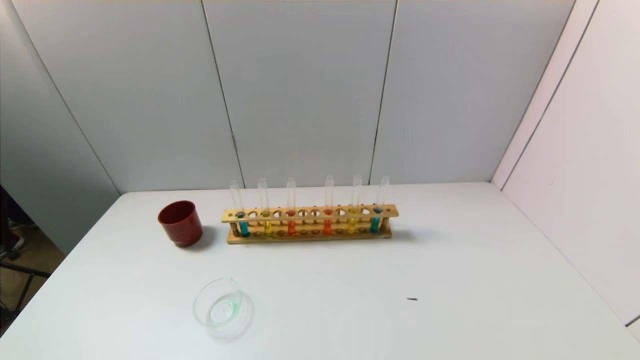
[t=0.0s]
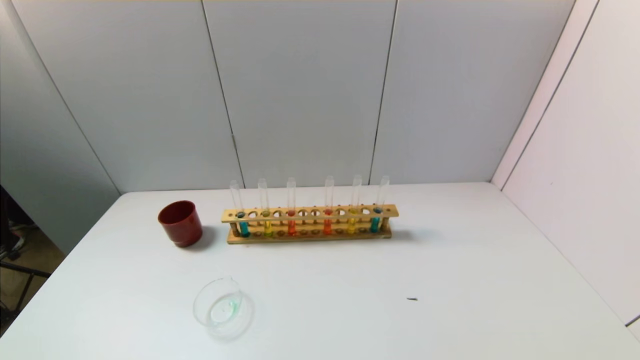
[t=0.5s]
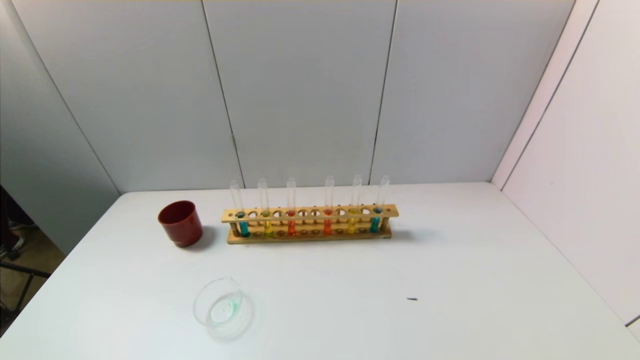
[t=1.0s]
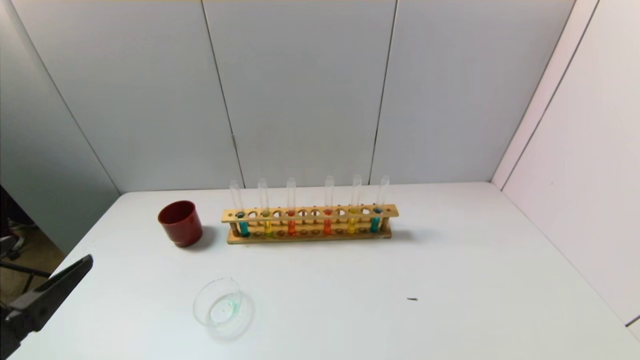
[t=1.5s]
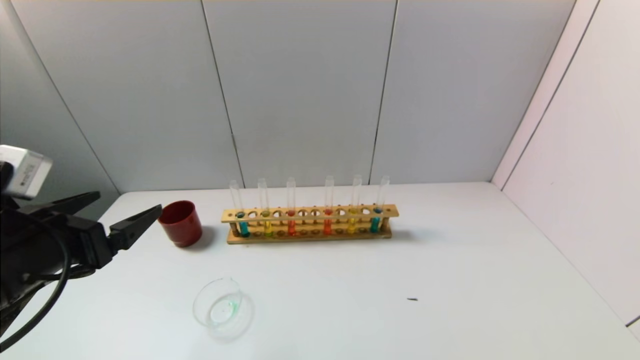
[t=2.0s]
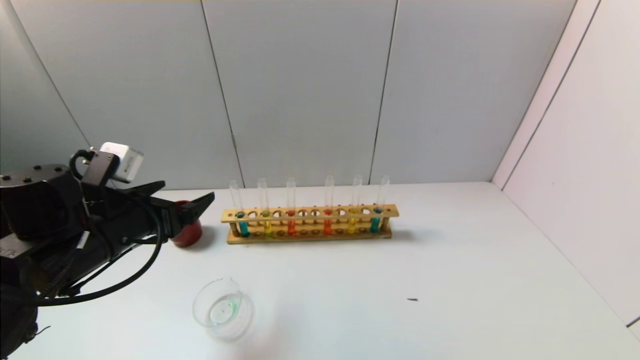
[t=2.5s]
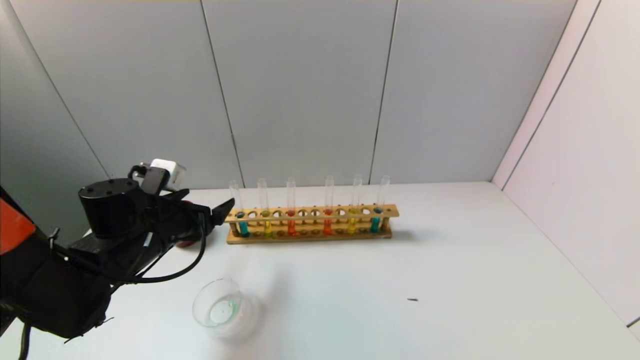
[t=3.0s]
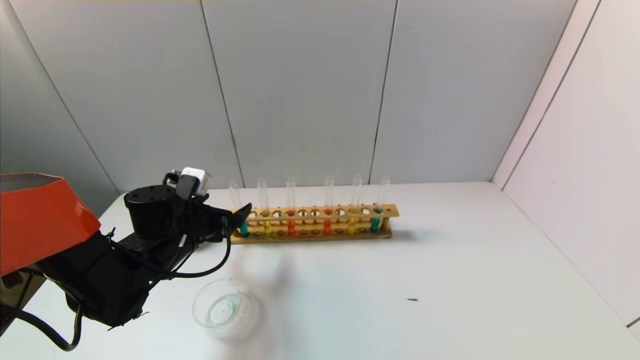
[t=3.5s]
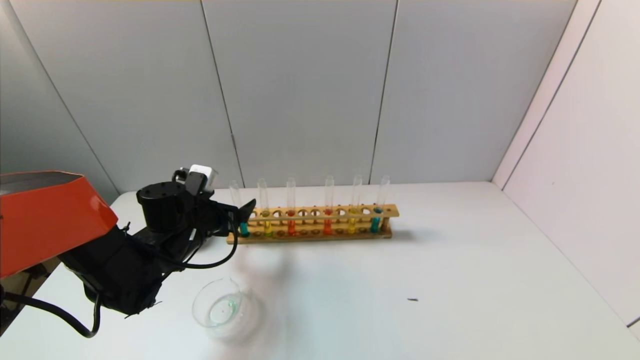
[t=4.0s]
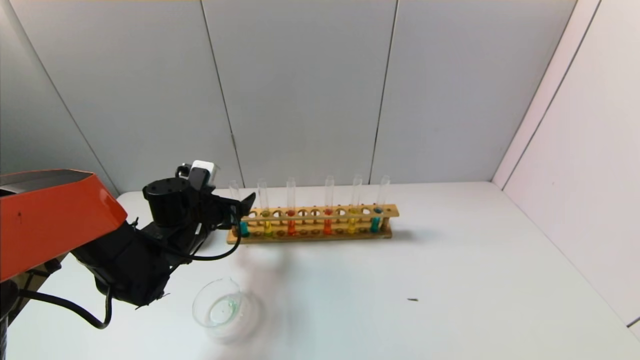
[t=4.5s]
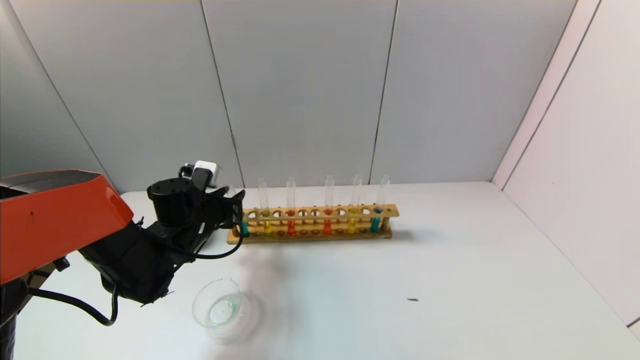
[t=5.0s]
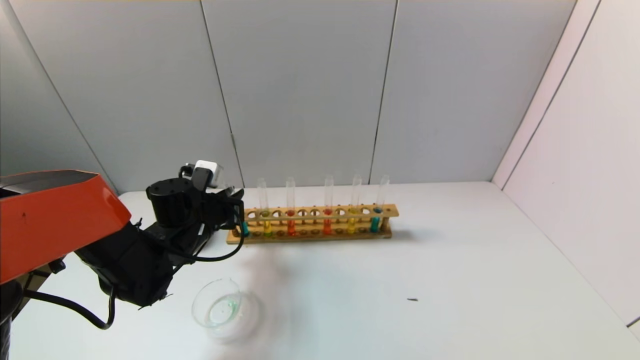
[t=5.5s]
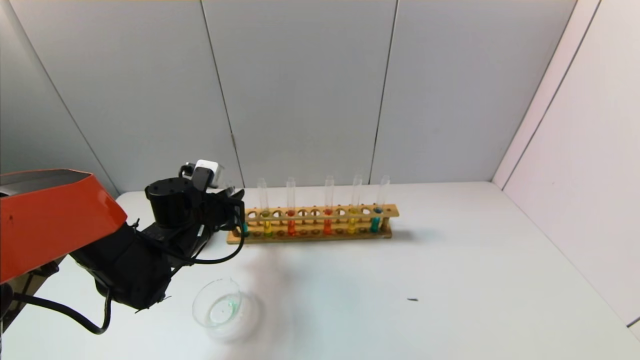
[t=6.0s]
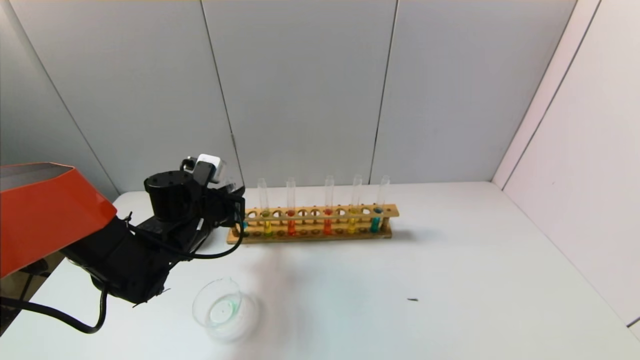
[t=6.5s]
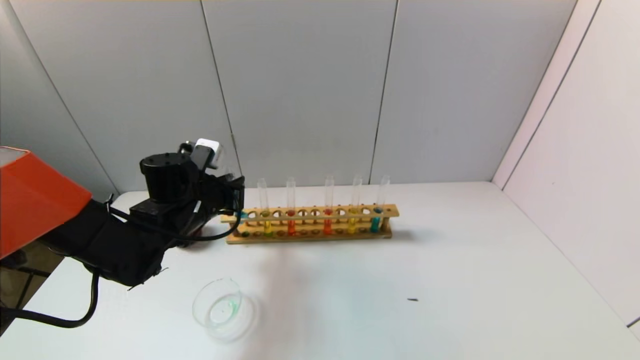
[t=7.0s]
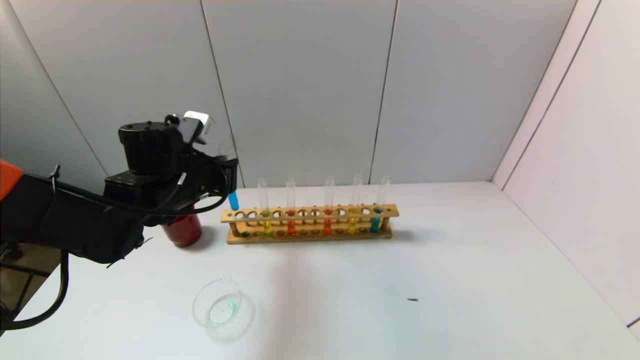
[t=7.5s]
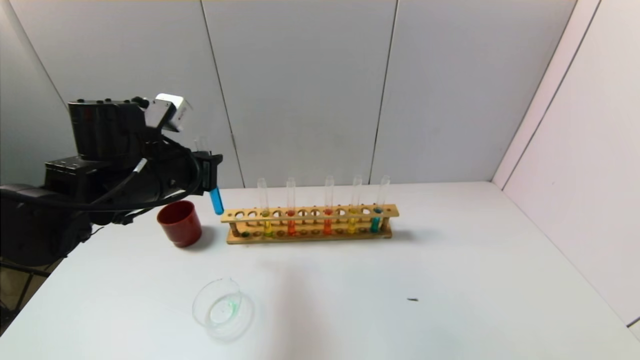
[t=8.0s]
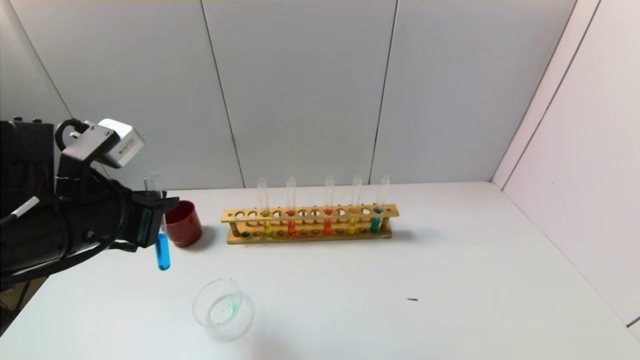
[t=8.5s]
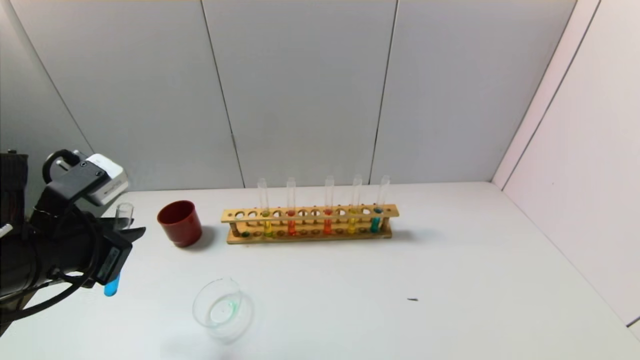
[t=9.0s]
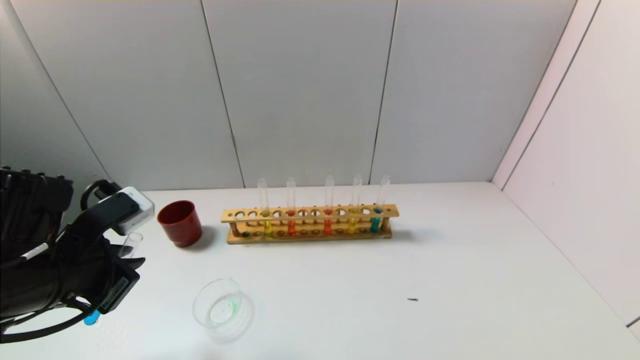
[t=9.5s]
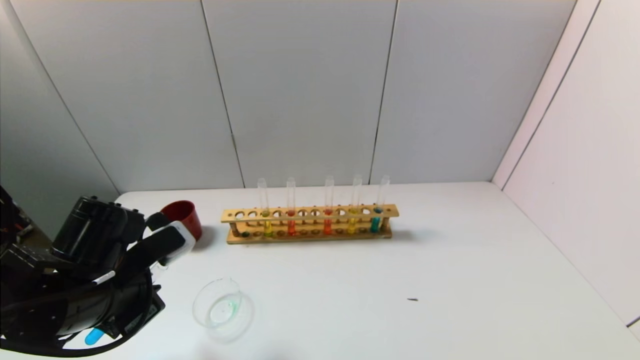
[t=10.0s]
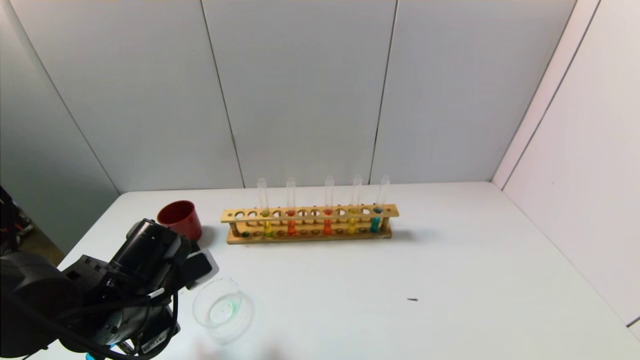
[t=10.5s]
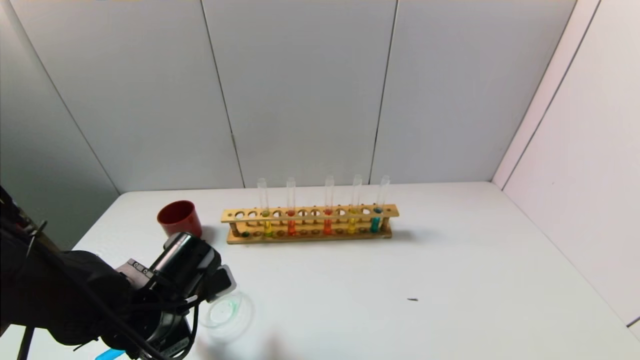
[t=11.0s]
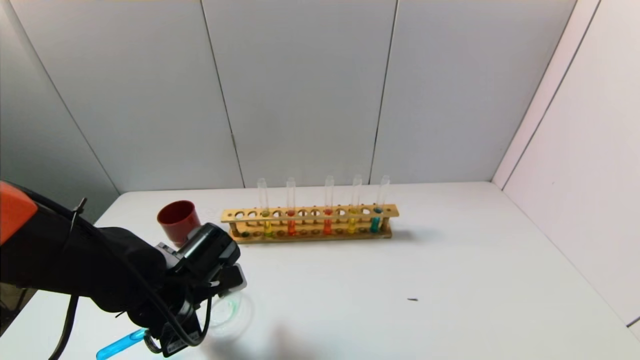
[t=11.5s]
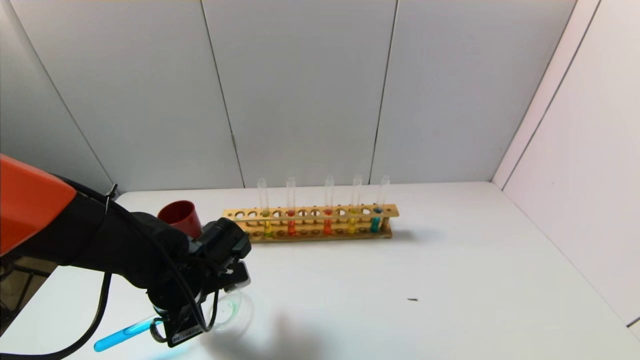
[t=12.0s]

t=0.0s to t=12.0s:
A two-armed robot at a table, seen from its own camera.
Task of the whole recording: pick up the test tube with yellow pigment and the test tube with blue pigment by grippers and pour them into the beaker.
Step, t=0.0s to t=5.0s: Grasp the blue reagent with the left gripper.
t=0.0s to t=2.0s: The left gripper shifts some 25 cm forward and upward.
t=2.0s to t=4.0s: The left gripper heads forward, downward and to the right, covering about 20 cm.
t=4.0s to t=6.0s: The left gripper closes.
t=6.0s to t=8.0s: The left gripper heads upward and backward, covering about 15 cm.
t=8.0s to t=10.0s: The left gripper goes about 10 cm backward and downward.
t=10.0s to t=12.0s: The left gripper heads downward, to the right and forward, covering roughly 10 cm.

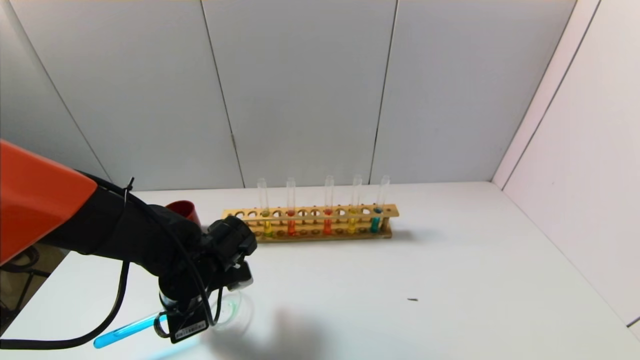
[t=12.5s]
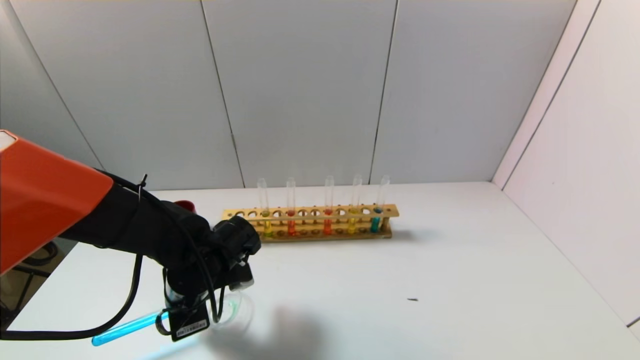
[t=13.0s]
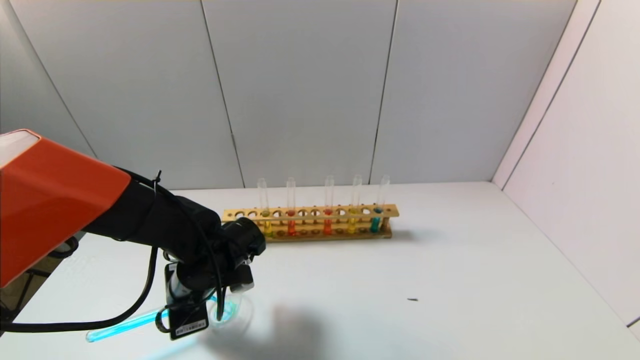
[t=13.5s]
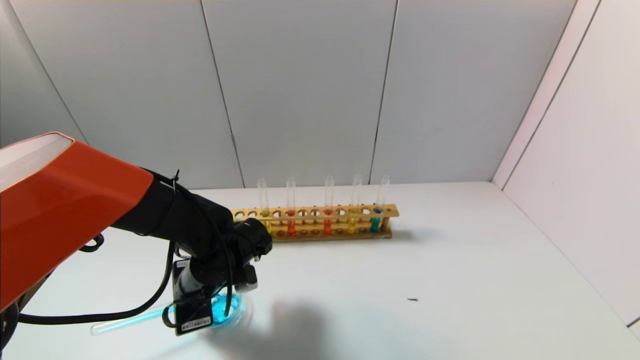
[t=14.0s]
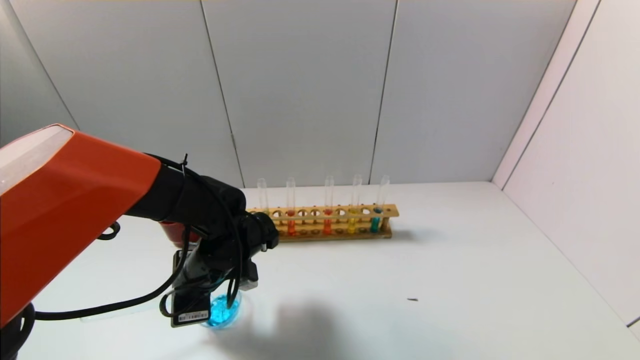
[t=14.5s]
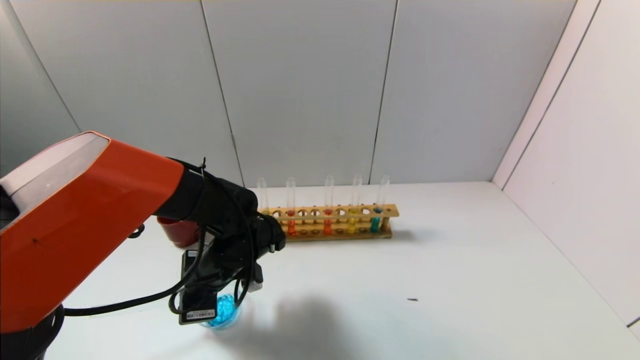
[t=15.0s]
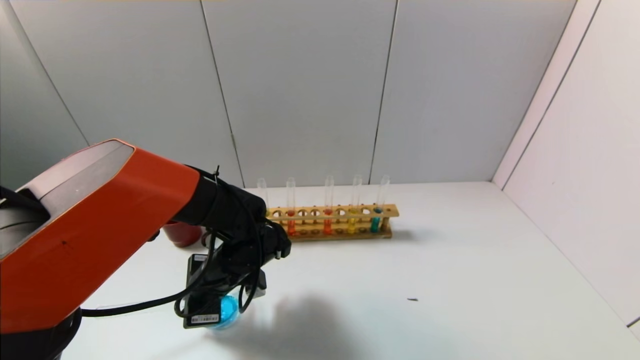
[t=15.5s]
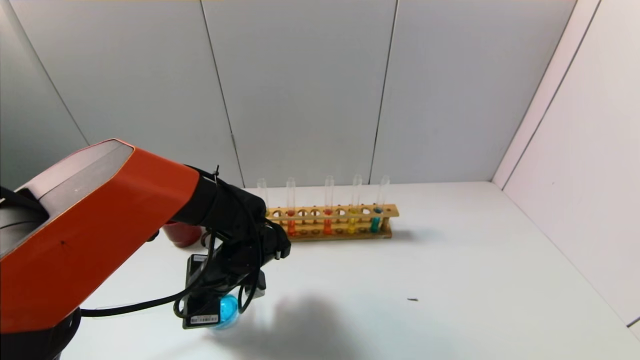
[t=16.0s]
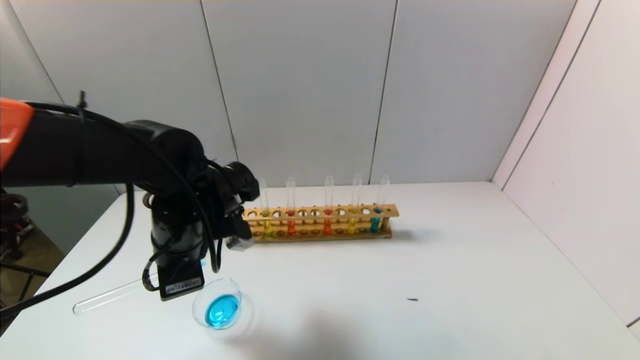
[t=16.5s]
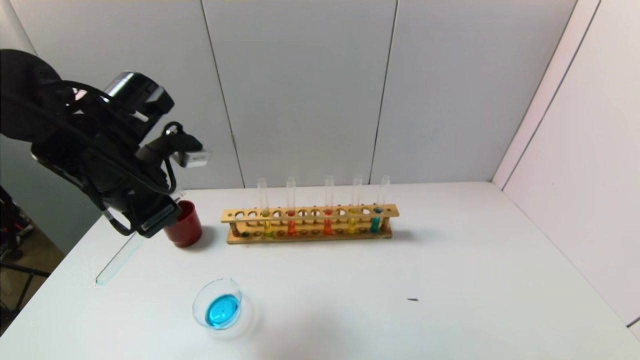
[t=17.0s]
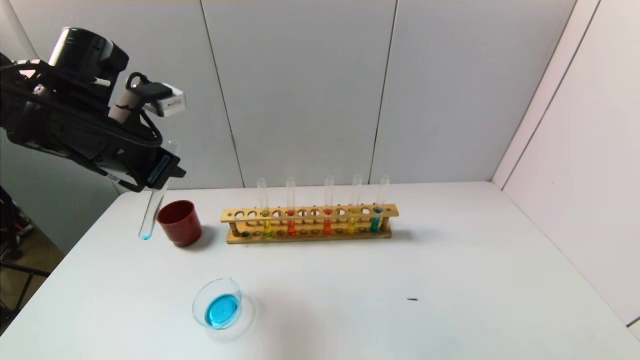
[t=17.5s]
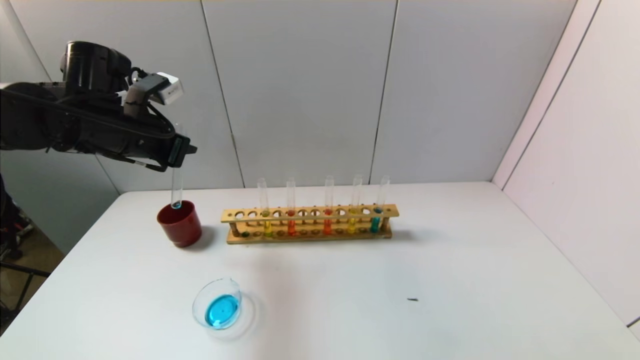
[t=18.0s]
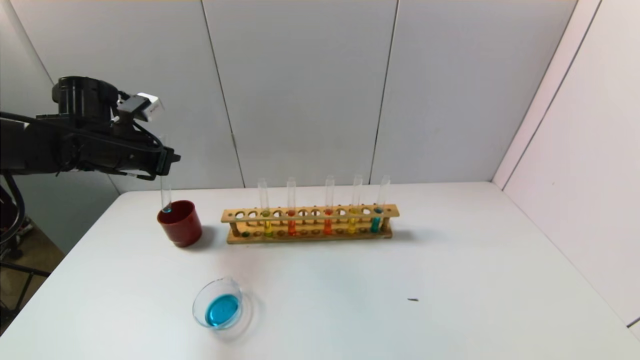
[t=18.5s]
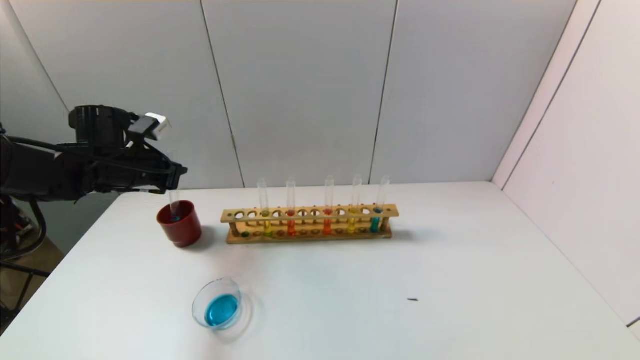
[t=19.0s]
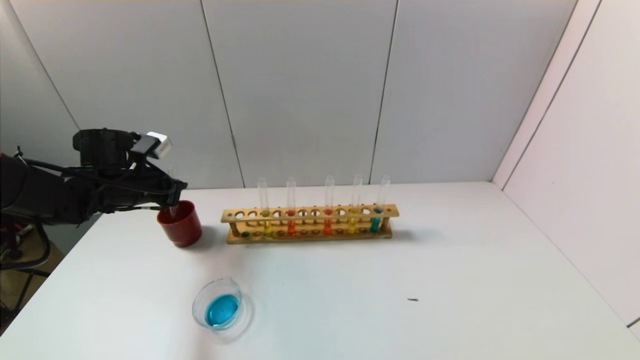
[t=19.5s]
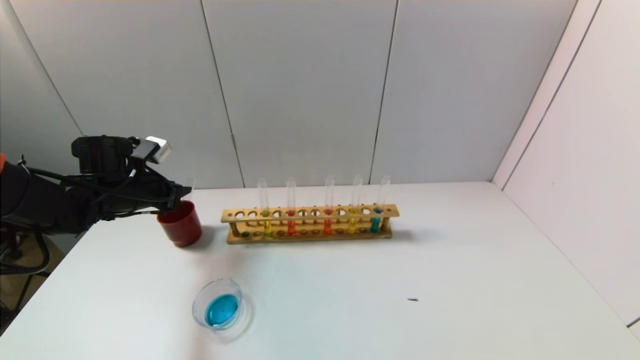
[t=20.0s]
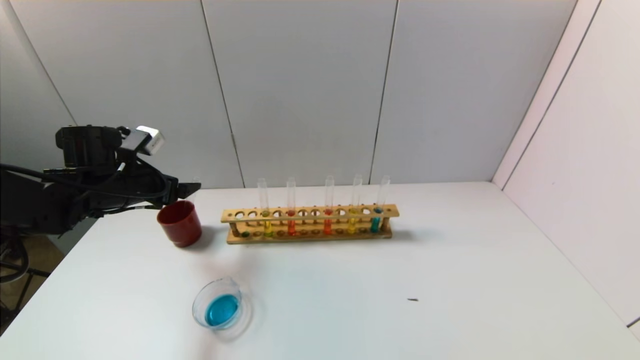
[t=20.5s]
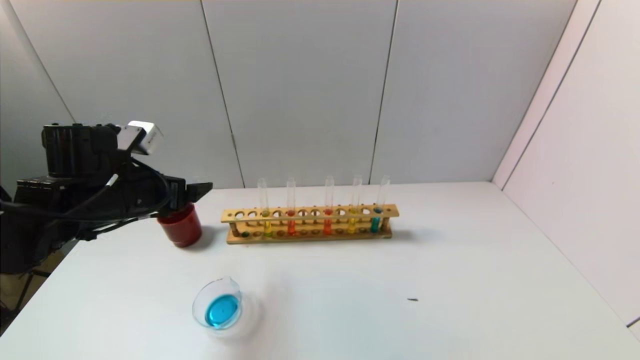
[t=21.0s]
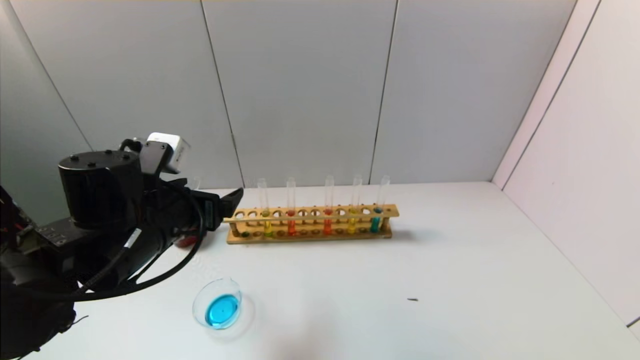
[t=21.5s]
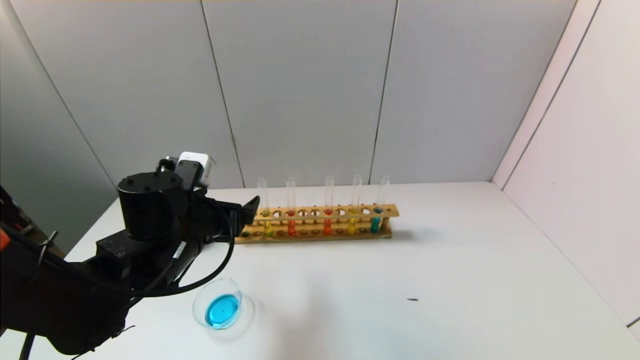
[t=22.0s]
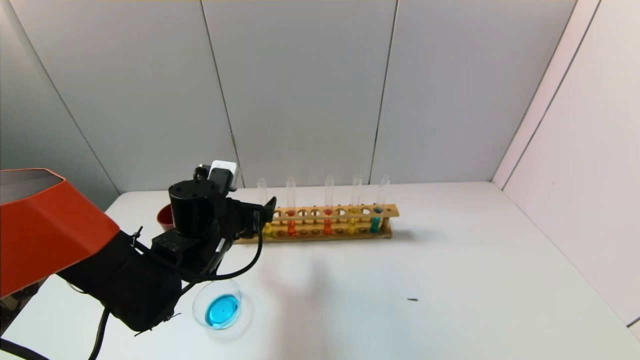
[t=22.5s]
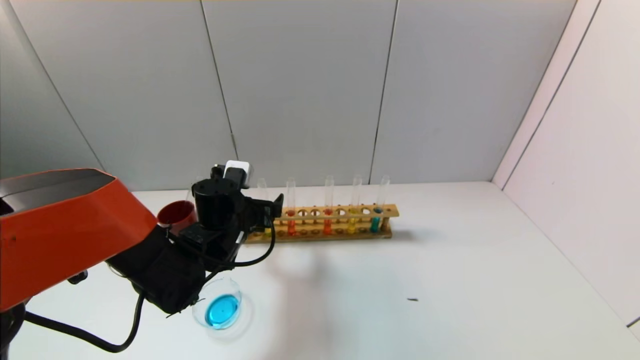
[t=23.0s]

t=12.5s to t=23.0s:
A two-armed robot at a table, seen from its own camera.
Task of the whole recording: pick up the test tube with yellow pigment and the test tube with blue pigment by grippers and pour them into the beaker.
Step, t=12.5s to t=16.5s: Pour the blue reagent into the graduated cylinder with the left gripper.
Step, t=17.0s to t=20.5s: Place the test tube into the brown cup with the left gripper.
t=12.5s to t=14.5s: The grippers stay close to where they were, moving slightly.
t=14.5s to t=16.5s: The left gripper is displaced upward by approximately 10 cm.
t=16.5s to t=19.0s: The left gripper goes roughly 20 cm to the left and forward.
t=19.0s to t=21.0s: The left gripper shifts some 10 cm backward and to the right, and opens its fingers.
t=21.0s to t=23.0s: The left gripper moves to the right and downward, approximately 15 cm.
